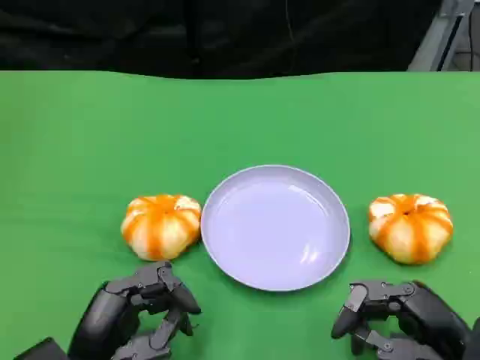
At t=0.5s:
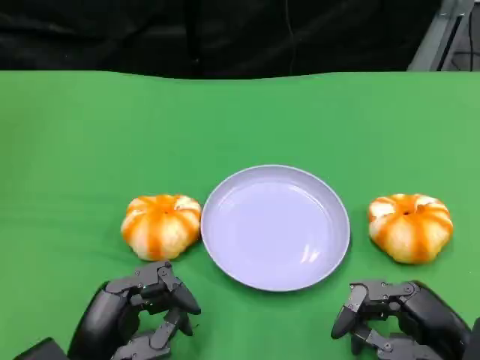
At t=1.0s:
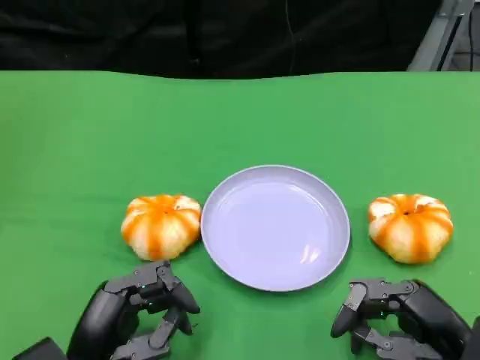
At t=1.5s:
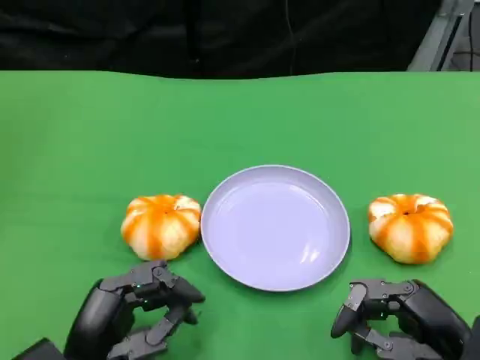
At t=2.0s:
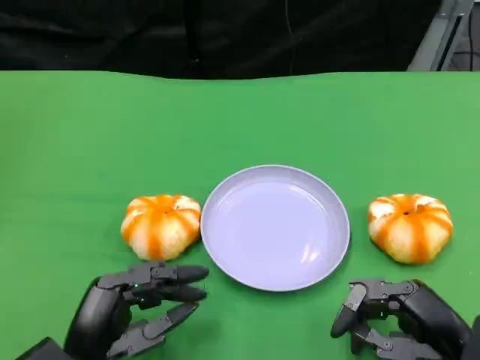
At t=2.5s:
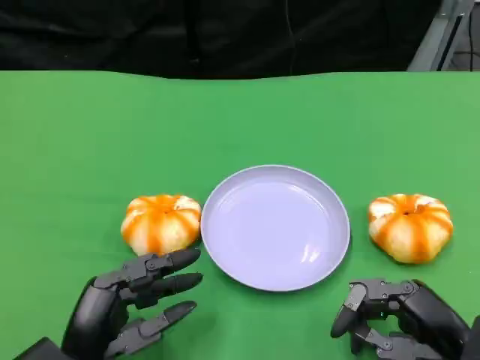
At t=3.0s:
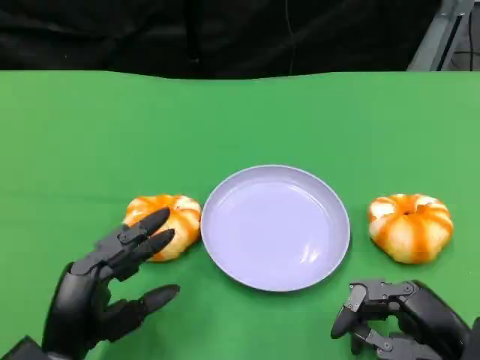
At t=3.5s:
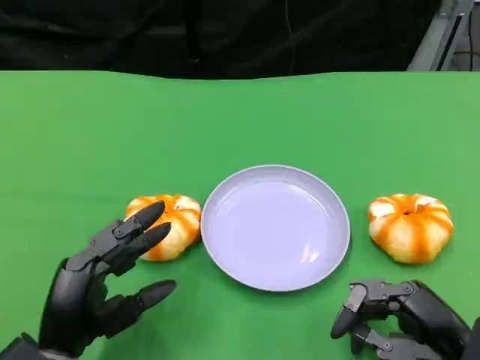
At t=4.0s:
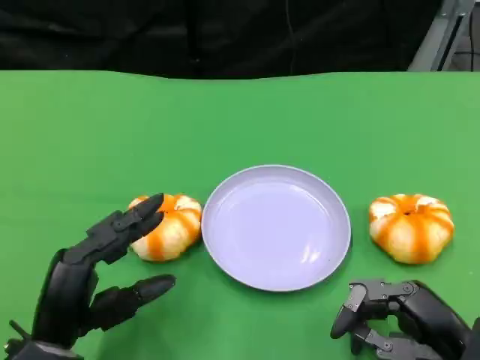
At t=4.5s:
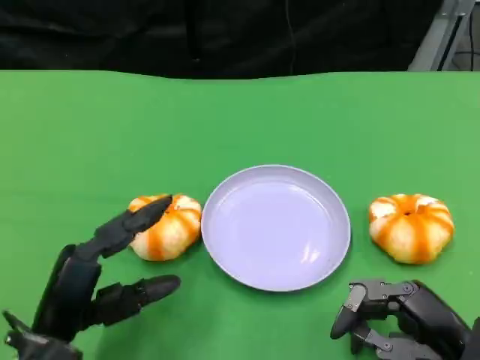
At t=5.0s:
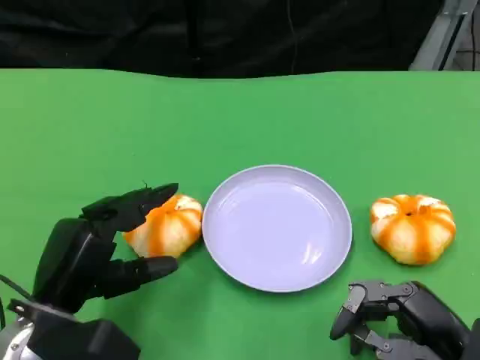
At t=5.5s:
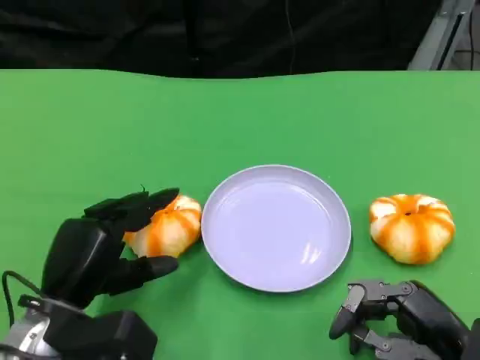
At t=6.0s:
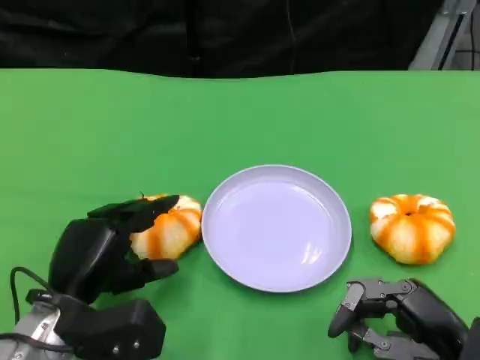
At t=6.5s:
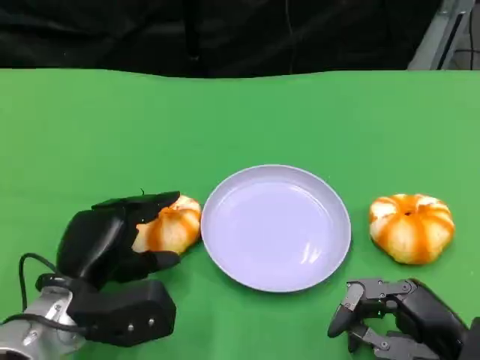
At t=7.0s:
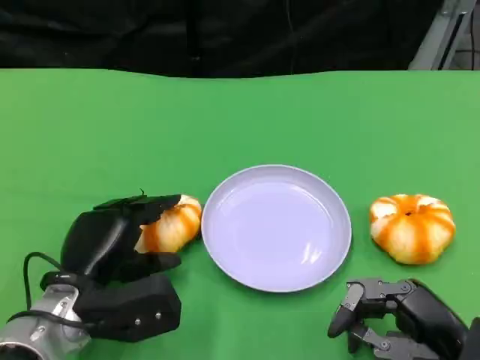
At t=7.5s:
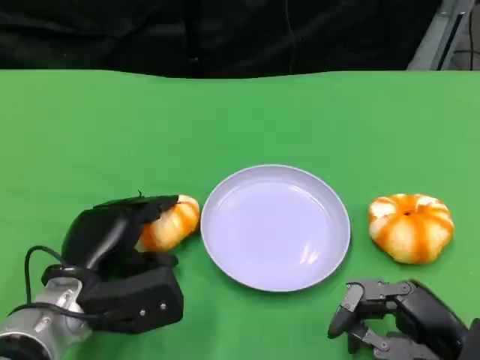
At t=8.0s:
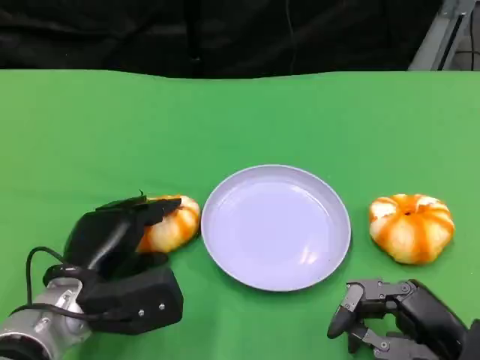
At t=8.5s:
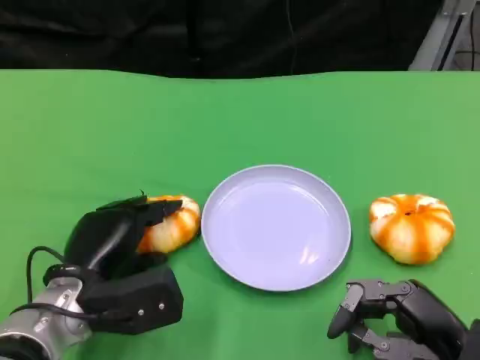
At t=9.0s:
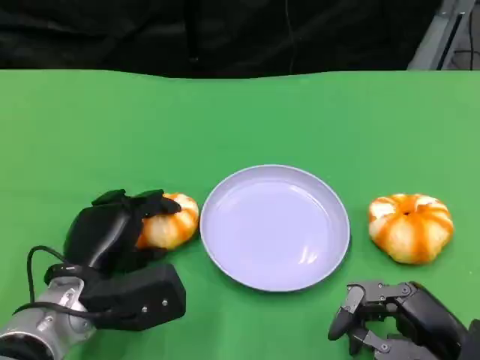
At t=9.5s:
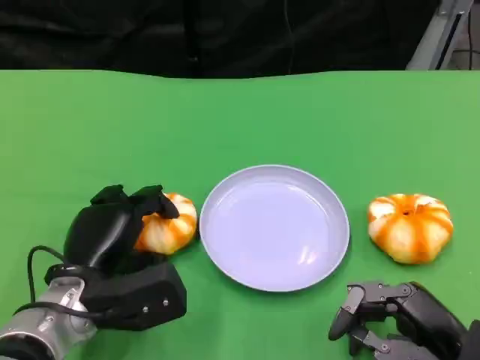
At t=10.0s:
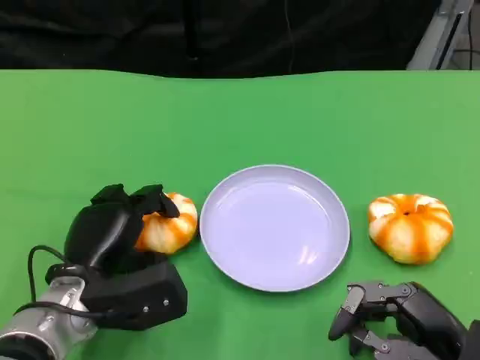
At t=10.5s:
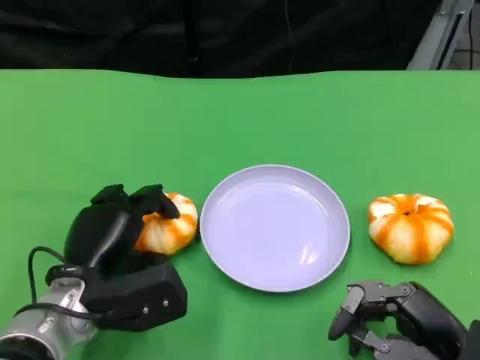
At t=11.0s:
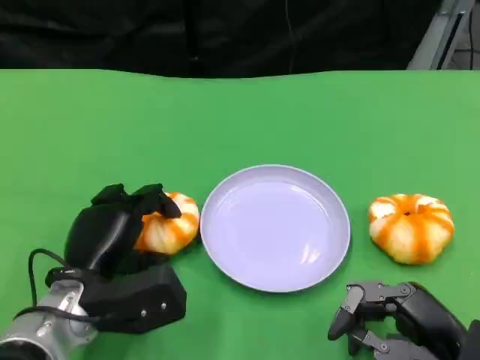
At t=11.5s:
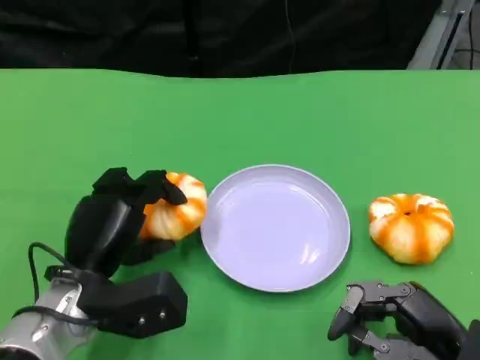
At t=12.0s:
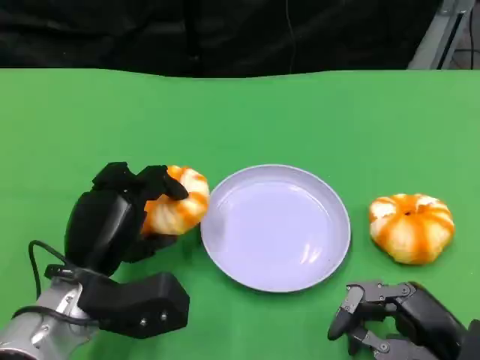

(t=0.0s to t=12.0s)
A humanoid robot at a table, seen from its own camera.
Task of the whole recording: Grasp the bread from the table and place it into the plate.
t=0.0s - t=2.0s: The hands stay close to where they were, moving slightly.
t=2.0s - t=4.0s: There are only small adjustments of the hands.
t=4.0s - t=6.0s: The left hand heads forward, covering about 5 cm.
t=6.0s - t=12.0s: There are only small adjustments of the hands.

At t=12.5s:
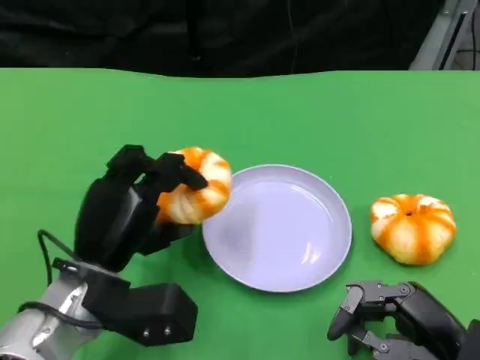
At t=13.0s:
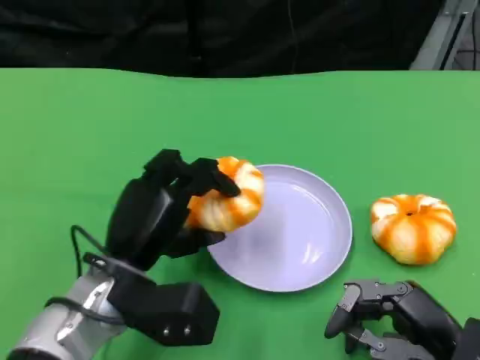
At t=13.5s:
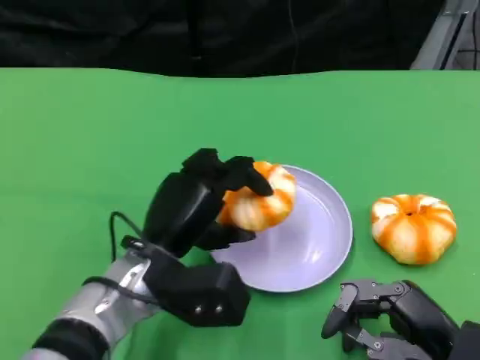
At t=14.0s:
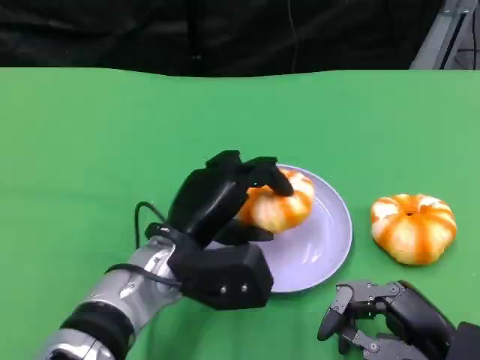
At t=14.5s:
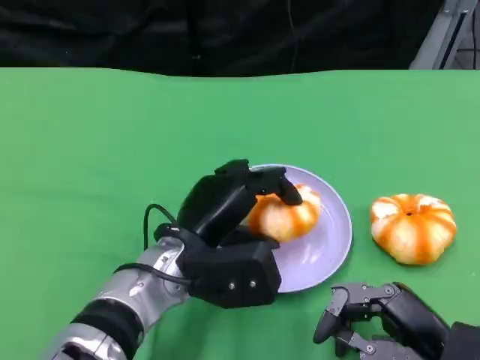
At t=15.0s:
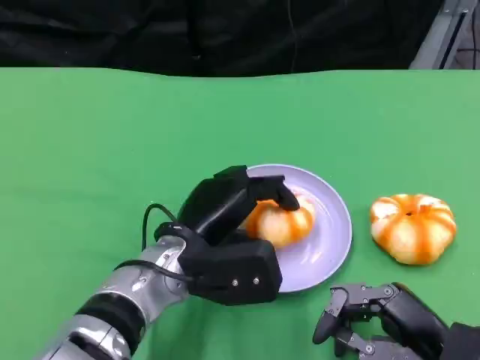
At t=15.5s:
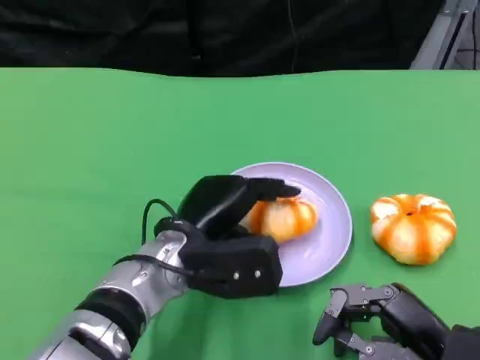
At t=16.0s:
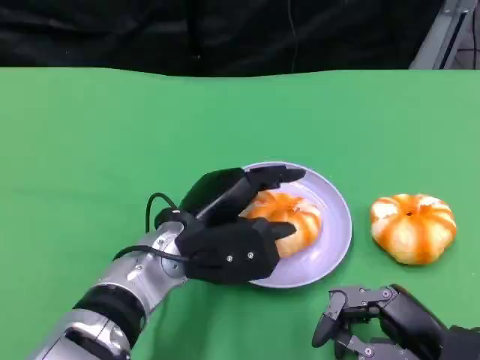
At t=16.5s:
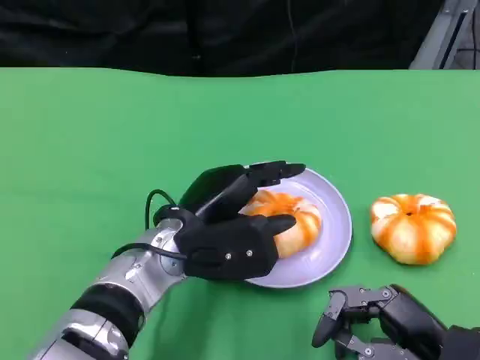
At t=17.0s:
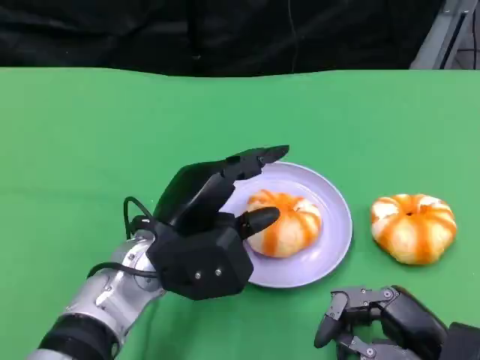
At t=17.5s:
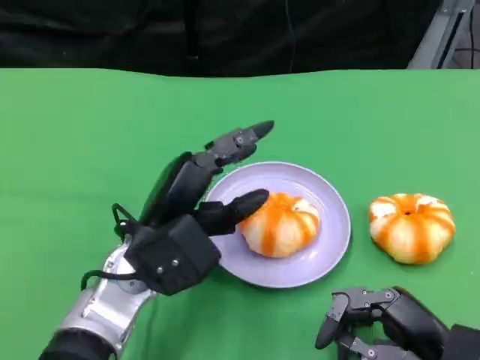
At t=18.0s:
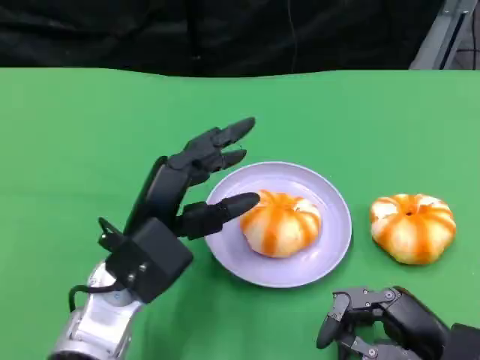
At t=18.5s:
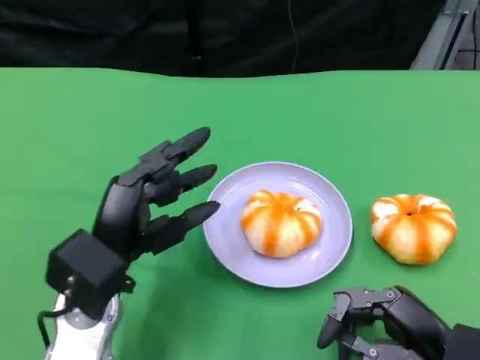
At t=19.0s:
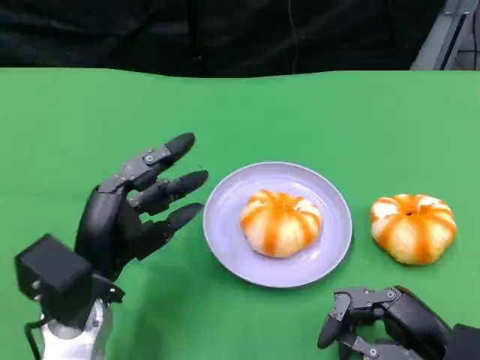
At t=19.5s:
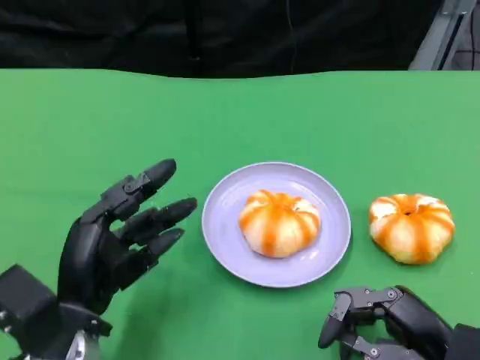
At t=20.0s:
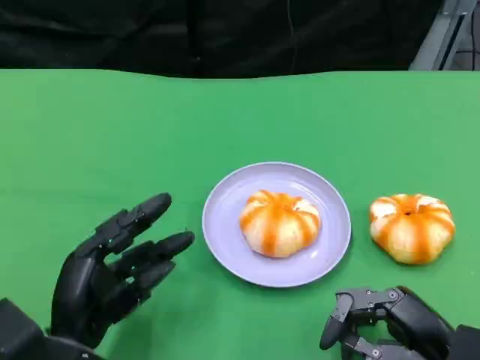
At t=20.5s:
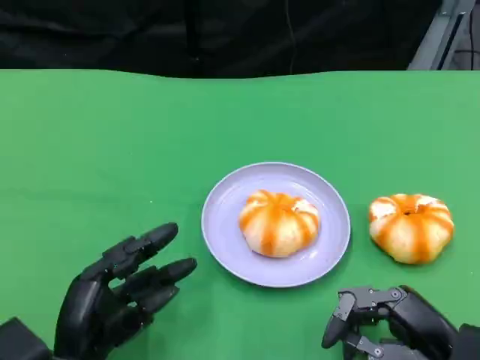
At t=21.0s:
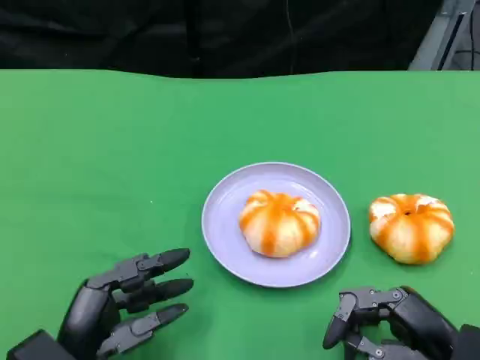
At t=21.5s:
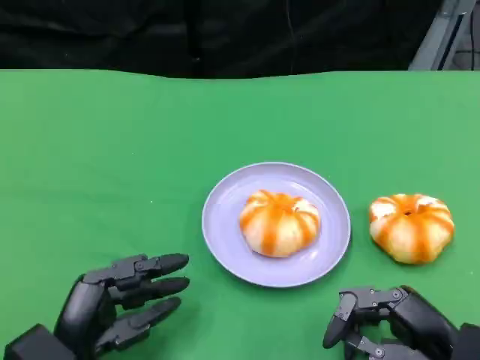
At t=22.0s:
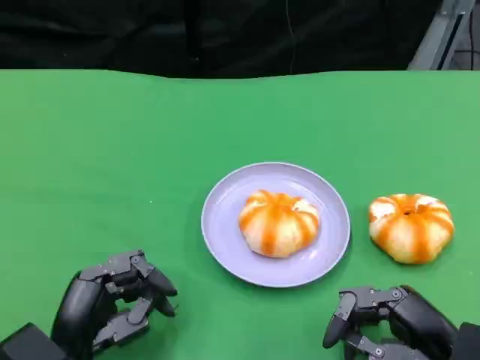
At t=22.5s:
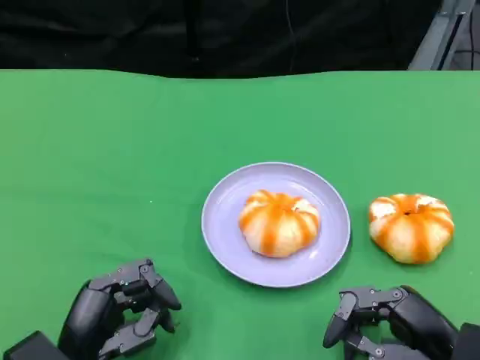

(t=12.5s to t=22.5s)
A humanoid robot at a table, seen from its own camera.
Task of the whole recording: Grasp the bread from the table and place it into the plate.
t=12.5s - t=14.5s: The left hand moves to the right, approximately 10 cm.
t=14.5s - t=16.5s: There are only small adjustments of the hands.
t=16.5s - t=18.5s: The left hand travels to the left by about 5 cm.
t=18.5s - t=20.5s: The left hand shifts roughly 10 cm backward and downward.
t=20.5s - t=22.5s: The hands make only small movements.
